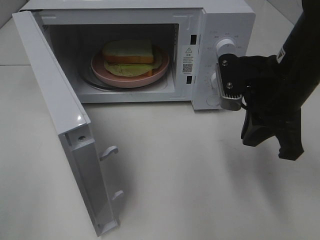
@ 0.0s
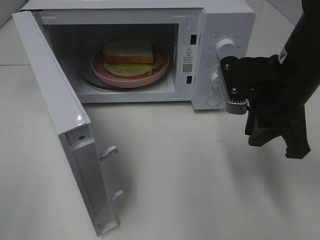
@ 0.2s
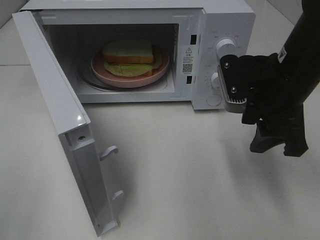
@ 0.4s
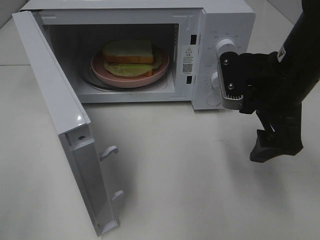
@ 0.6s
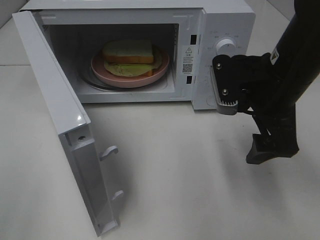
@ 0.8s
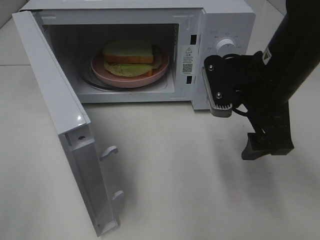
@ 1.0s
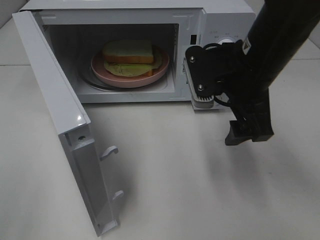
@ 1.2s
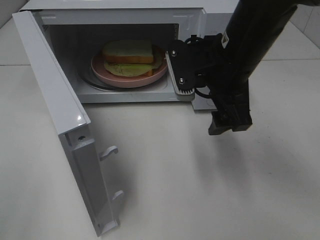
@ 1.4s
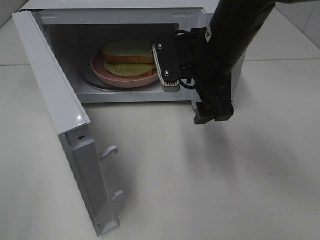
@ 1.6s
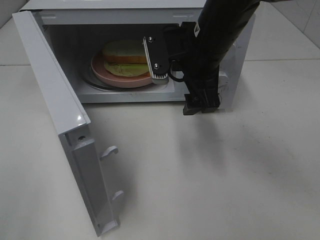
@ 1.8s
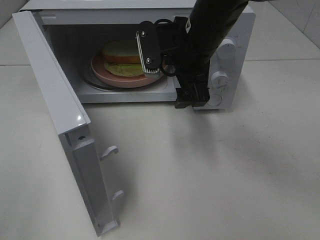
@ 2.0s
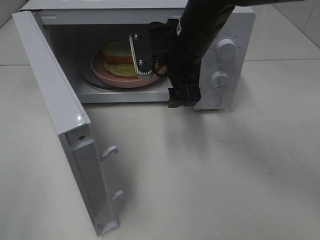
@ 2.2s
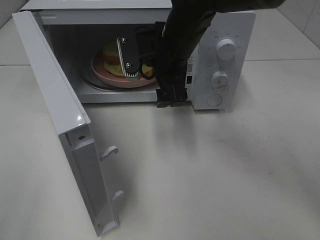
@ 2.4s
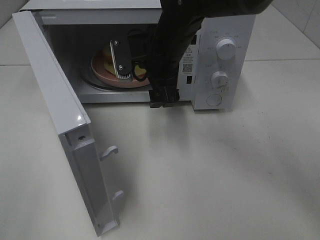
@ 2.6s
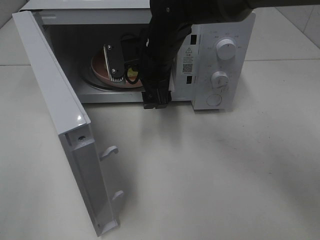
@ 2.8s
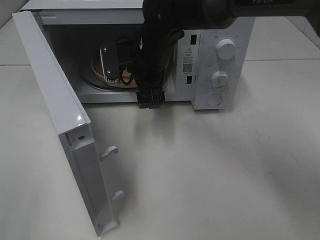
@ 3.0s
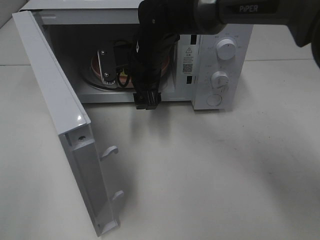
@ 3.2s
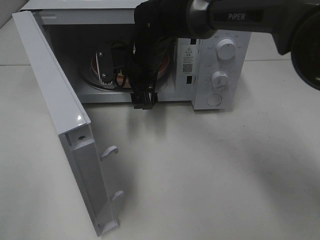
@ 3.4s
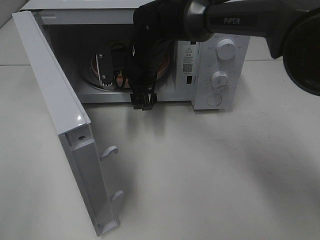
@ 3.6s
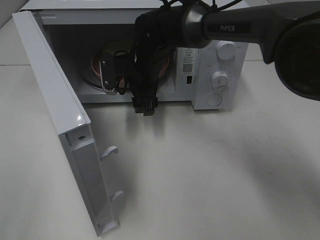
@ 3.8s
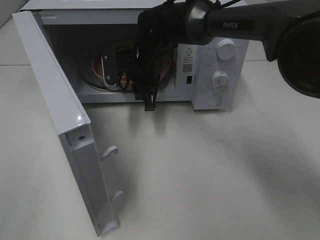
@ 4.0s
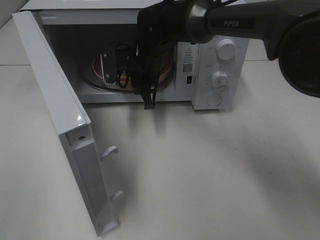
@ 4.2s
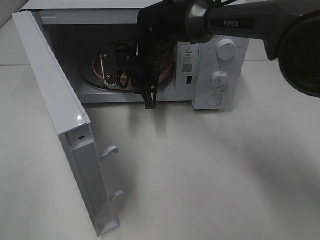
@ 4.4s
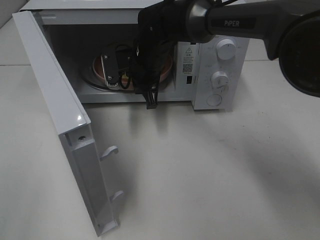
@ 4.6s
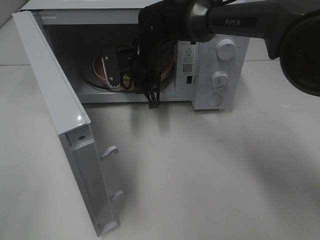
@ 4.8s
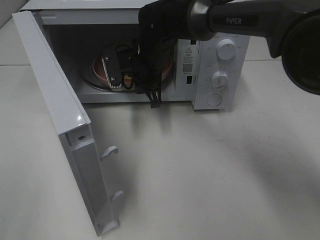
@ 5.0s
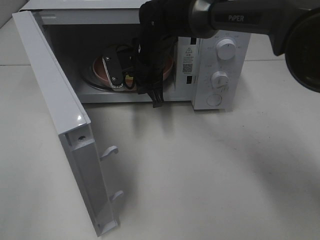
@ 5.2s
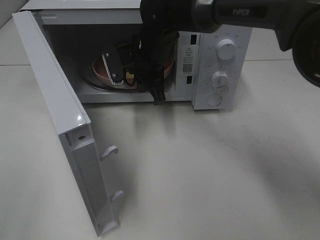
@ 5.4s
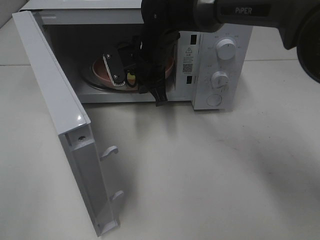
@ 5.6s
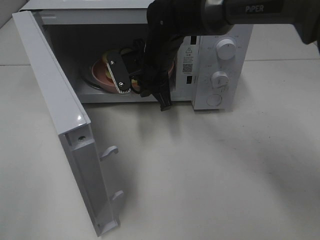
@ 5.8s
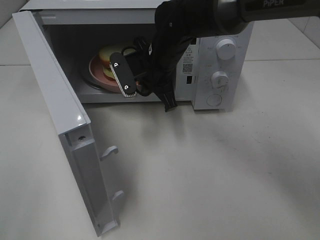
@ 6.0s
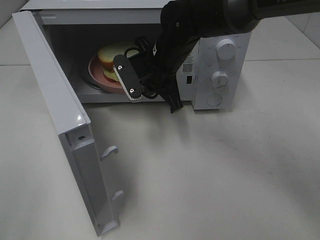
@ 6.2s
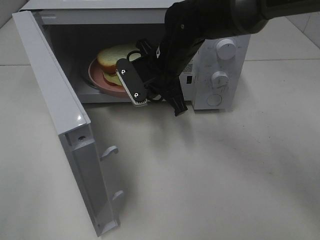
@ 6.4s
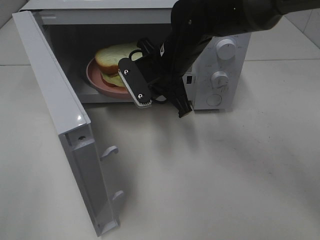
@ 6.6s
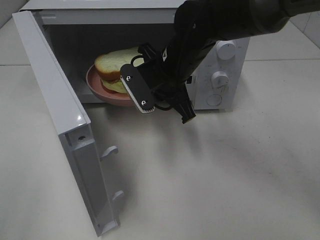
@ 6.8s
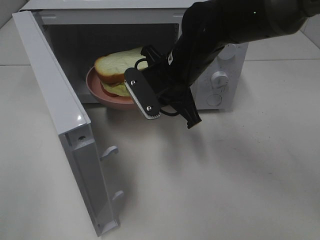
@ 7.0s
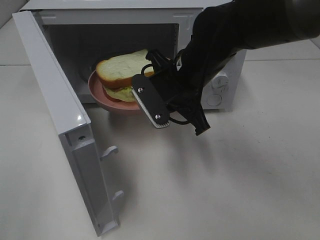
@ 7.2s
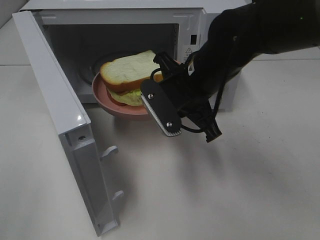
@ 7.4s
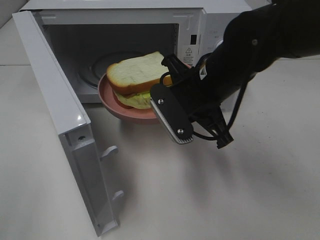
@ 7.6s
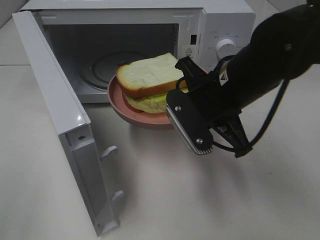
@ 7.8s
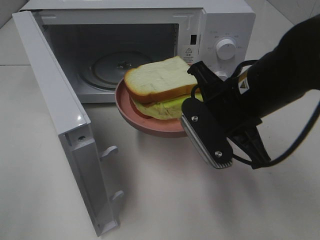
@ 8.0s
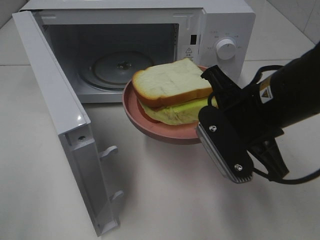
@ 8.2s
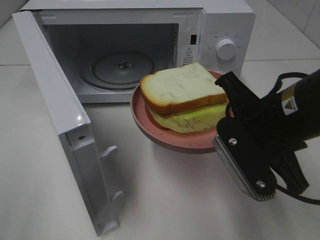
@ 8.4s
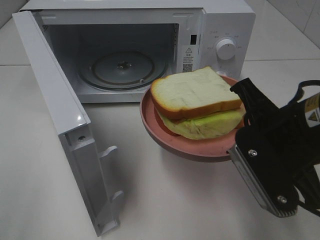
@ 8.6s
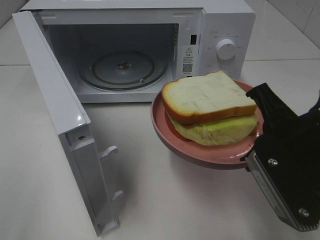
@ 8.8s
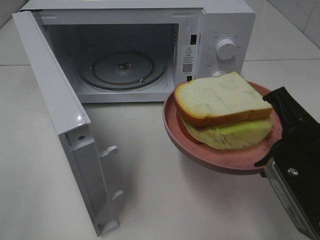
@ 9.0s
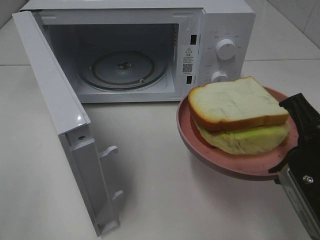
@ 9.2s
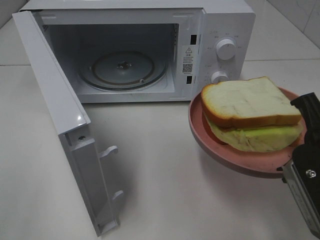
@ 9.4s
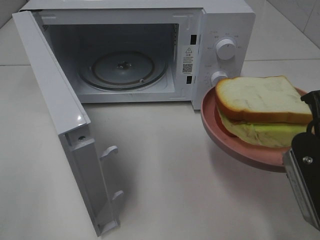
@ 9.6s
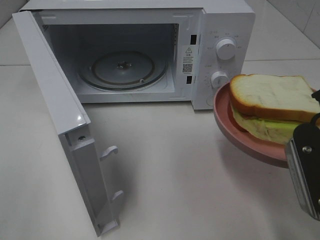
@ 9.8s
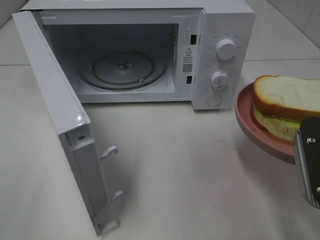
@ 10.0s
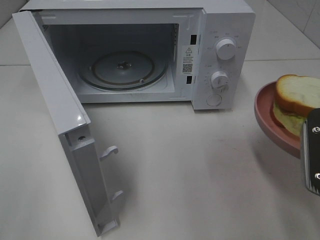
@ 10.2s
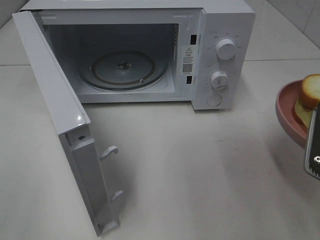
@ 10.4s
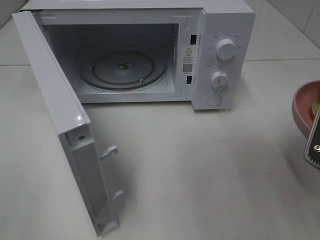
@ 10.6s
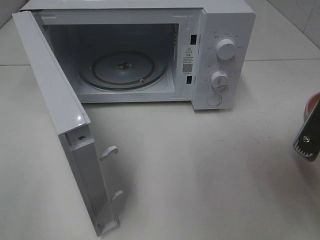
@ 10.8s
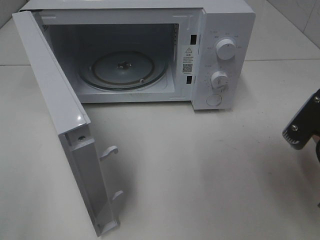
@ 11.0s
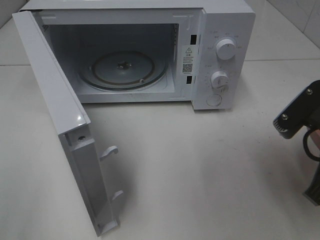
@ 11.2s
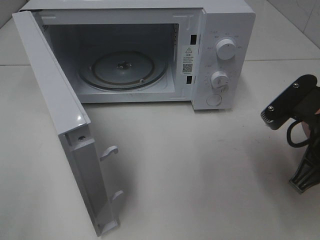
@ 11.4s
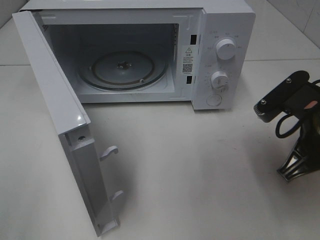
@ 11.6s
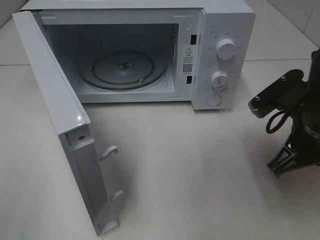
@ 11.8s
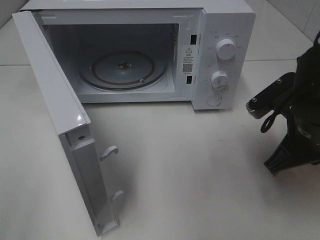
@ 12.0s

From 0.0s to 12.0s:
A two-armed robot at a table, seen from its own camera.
Task of the whole recording: Heat Sandwich.
Step, from 0.0s to 5.0s: Right hand: grab the plate with the sandwich.
From 0.0s to 1.6s: The right gripper is displaced to the left and forward by approximately 10 cm, and opens its fingers.
From 1.6s to 3.0s: The right gripper shifts approximately 15 cm to the left, forward and downward.
From 3.0s to 4.4s: The right gripper closes its fingers.
From 4.4s to 6.0s: The right gripper ends up some 5 cm from where it was.
From 6.0s to 7.6s: The right gripper travels backward and to the right by roughly 15 cm.
From 7.6s to 9.0s: The right gripper goes some 15 cm backward and to the right.
From 10.4s to 12.0s: The right gripper is displaced forward and downward by some 10 cm.

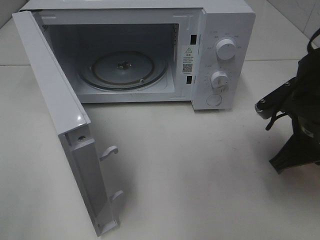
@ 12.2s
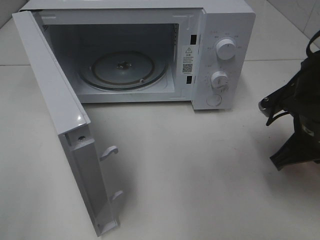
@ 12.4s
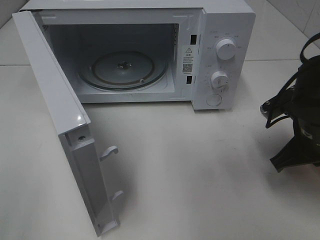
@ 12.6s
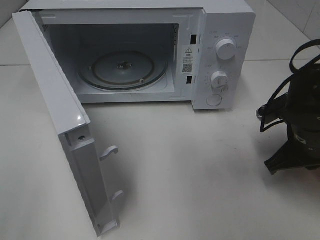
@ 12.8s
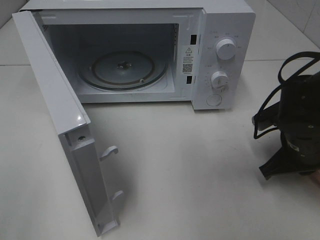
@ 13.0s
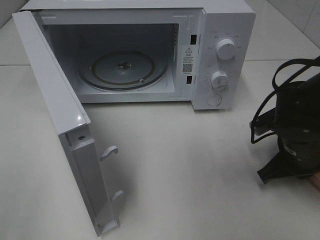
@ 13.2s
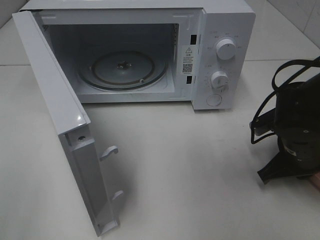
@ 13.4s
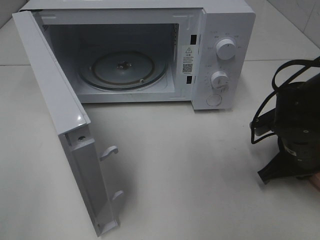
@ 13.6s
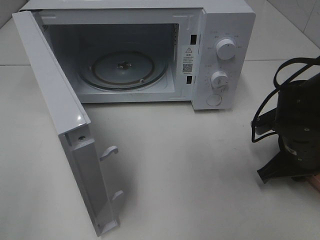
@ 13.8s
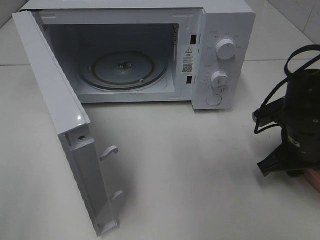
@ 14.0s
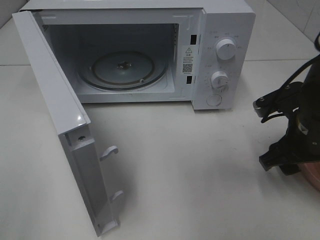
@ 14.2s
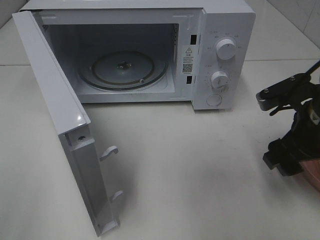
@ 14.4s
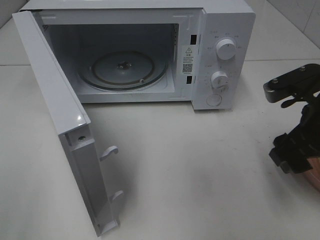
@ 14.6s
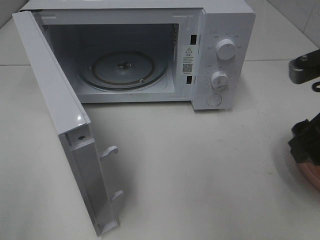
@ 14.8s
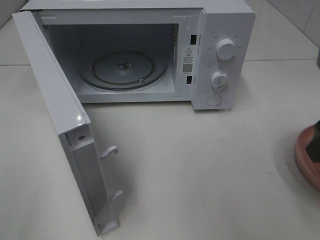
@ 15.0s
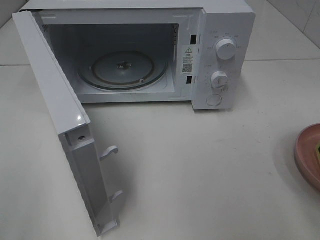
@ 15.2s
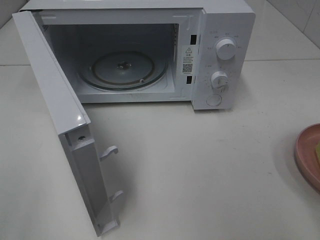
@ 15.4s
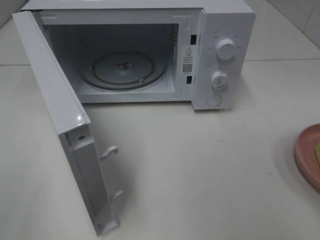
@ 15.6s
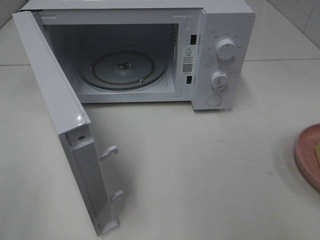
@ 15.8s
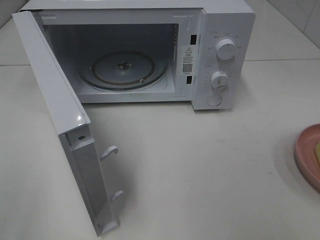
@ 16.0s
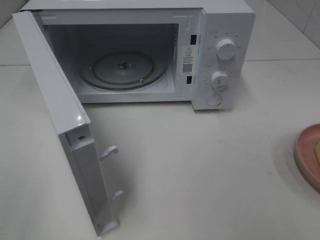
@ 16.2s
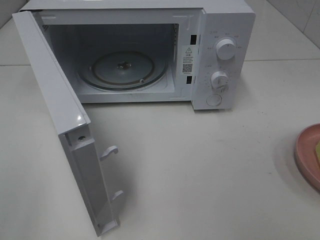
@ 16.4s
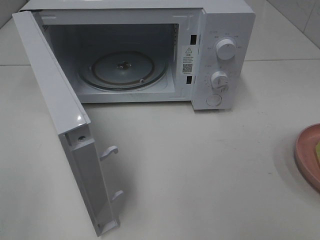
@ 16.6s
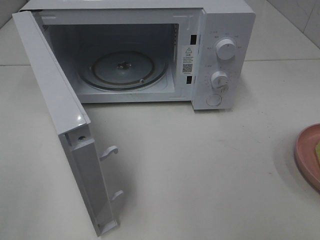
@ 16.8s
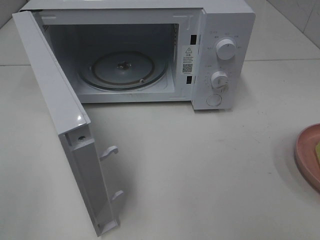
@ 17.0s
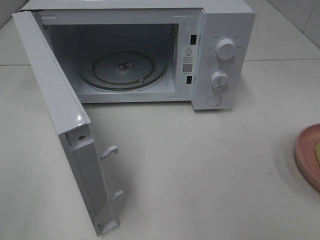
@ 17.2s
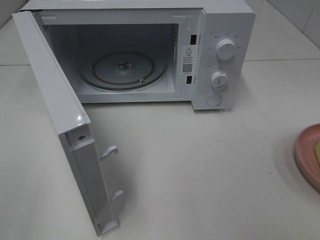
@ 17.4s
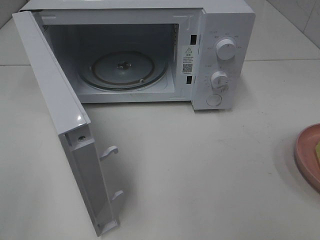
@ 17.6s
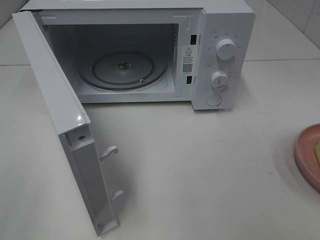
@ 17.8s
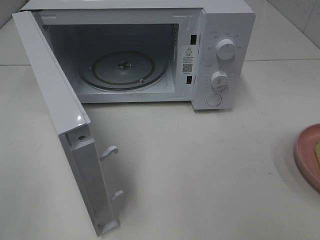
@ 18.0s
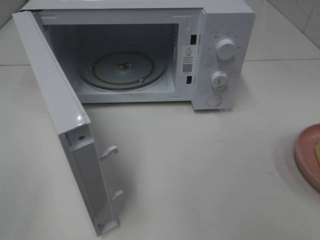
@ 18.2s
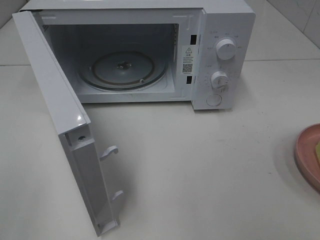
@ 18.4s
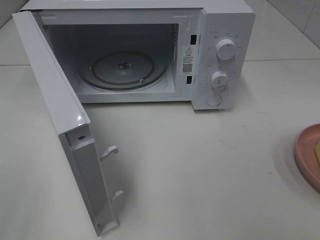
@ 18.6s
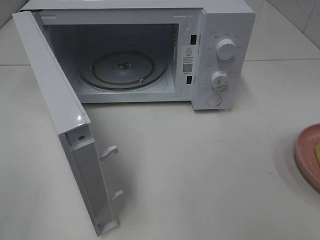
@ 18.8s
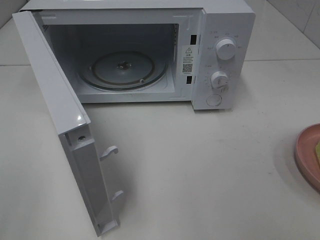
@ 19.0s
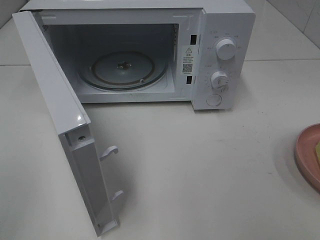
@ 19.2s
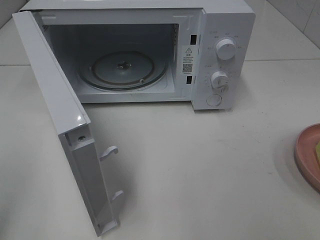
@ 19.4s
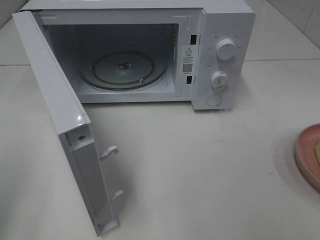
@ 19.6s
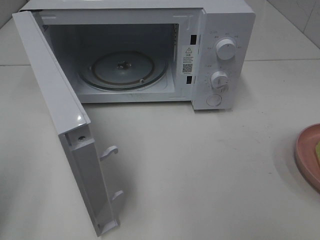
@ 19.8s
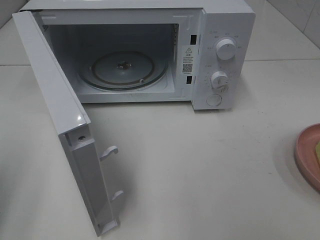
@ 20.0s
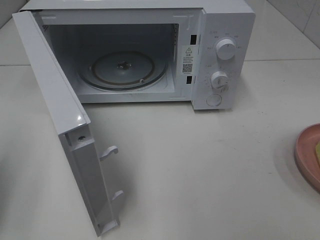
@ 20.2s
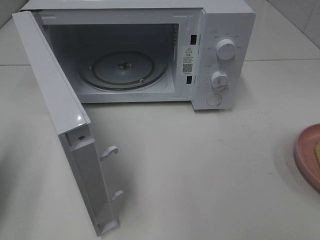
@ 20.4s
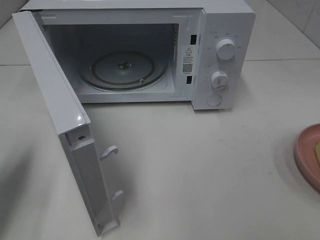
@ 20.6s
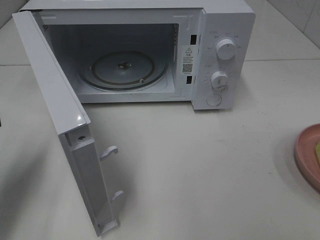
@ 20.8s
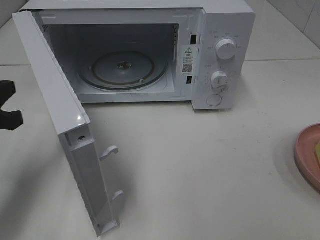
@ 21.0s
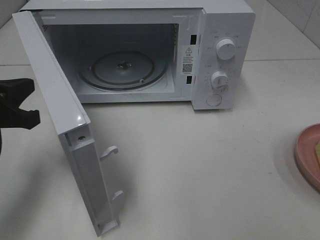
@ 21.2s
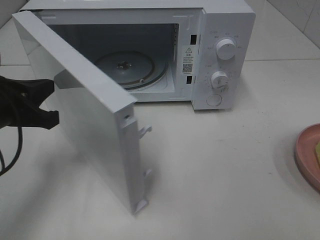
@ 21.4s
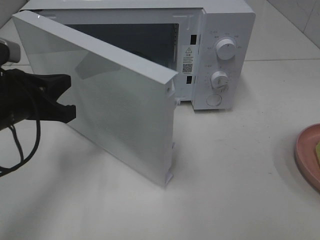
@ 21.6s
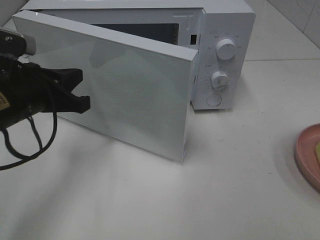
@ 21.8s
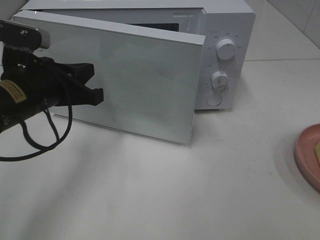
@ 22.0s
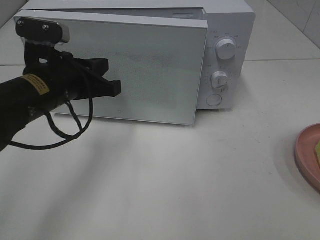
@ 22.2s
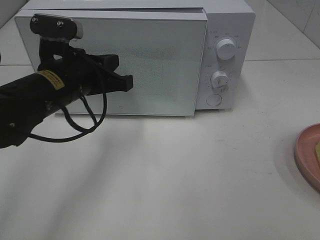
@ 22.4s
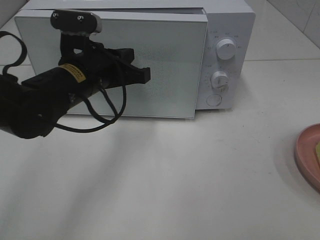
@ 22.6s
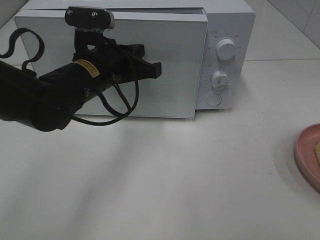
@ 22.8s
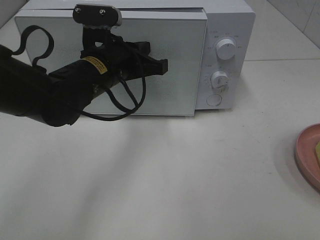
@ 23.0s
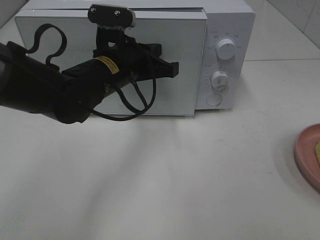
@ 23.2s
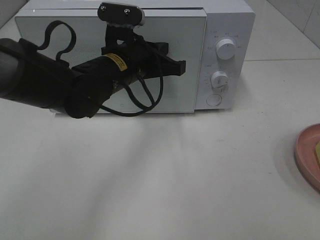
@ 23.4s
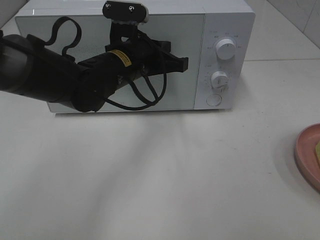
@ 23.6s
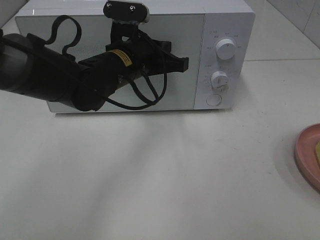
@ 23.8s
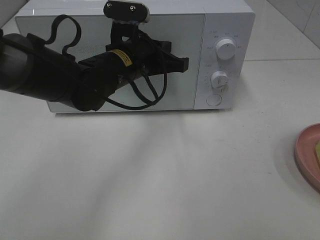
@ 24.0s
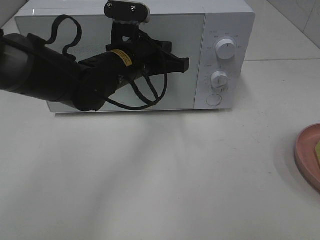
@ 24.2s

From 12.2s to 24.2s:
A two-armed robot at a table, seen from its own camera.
Task of the whole recording: Heat Sandwich.
Step, from 12.2s to 14.6s: Right hand: place the plate on the table.
From 12.2s to 13.8s: The right gripper shifts some 5 cm downward.
From 13.8s to 15.2s: The right gripper shifts about 20 cm upward and backward, and opens up.
From 16.6s to 18.2s: The two grippers keep their place.
From 19.8s to 21.2s: The left gripper heads forward, to the right and downward, covering some 15 cm.
From 21.2s to 22.6s: The left gripper heads to the right and forward, covering roughly 15 cm.
From 22.6s to 24.2s: The left gripper is displaced to the right by roughly 5 cm.
